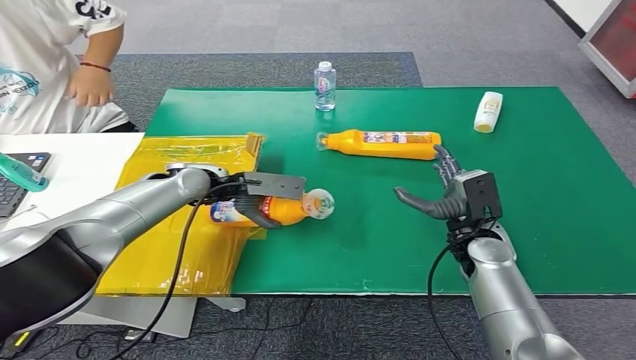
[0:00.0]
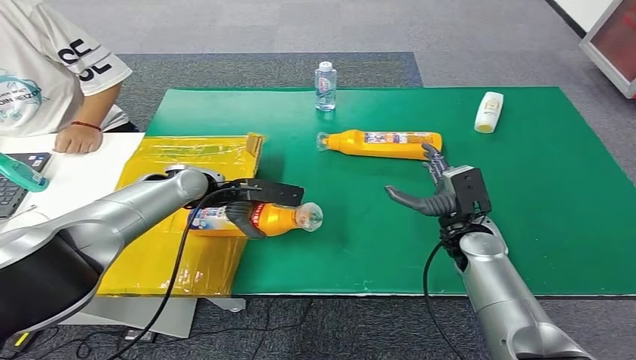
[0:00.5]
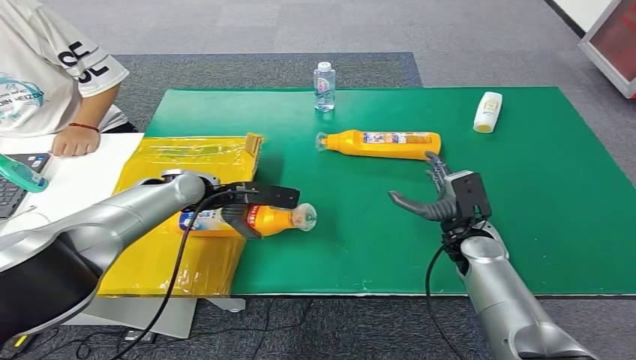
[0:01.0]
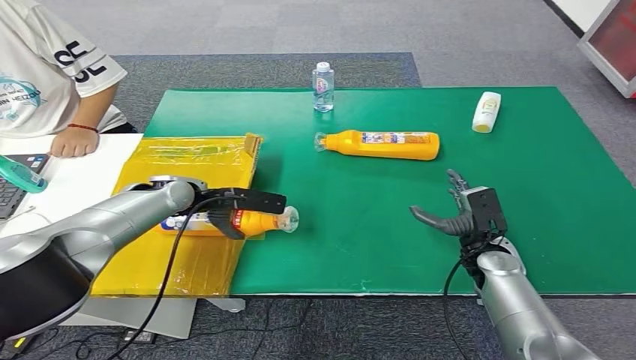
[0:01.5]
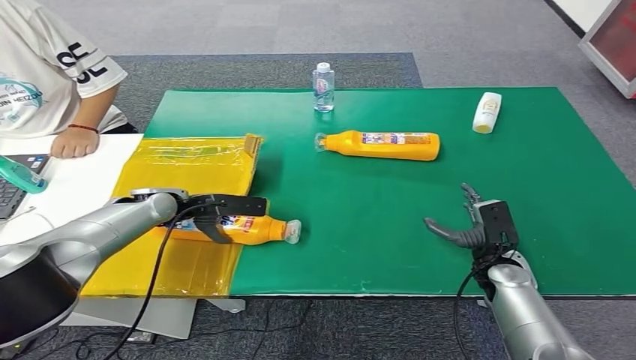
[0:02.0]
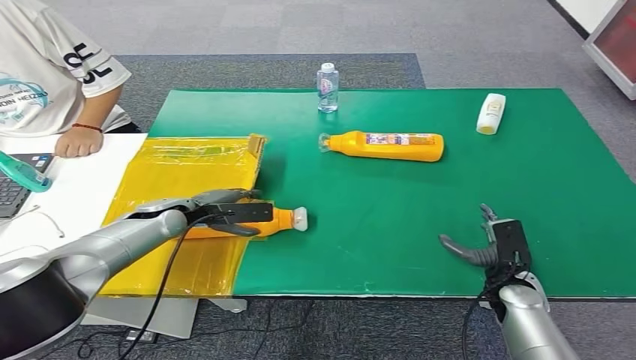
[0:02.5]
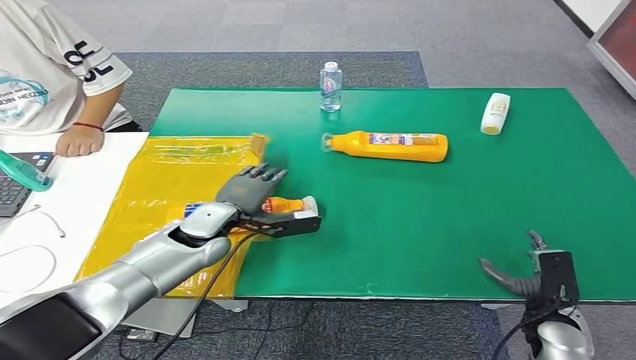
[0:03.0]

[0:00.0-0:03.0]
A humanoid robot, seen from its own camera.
Step, 0:00.0 to 0:03.0: Turn the bottle to the front side.
0:00.0 to 0:01.5: The right hand is displaced downward by roughly 5 cm.
